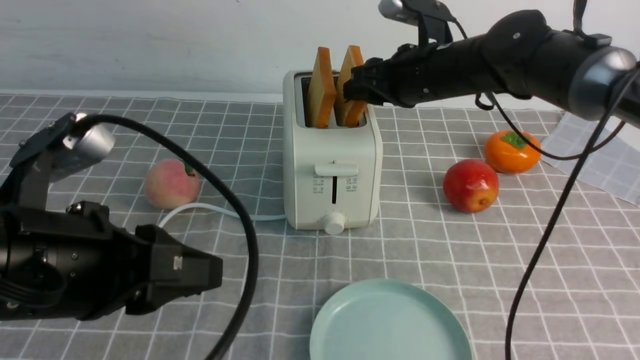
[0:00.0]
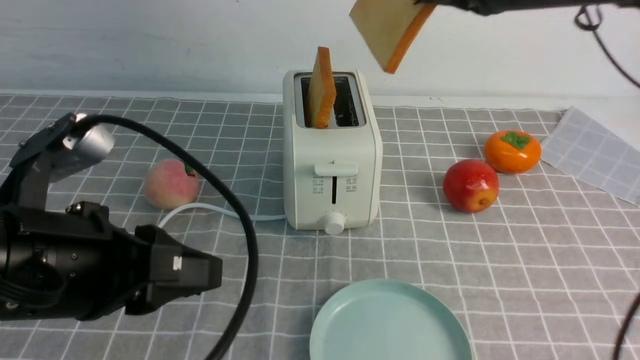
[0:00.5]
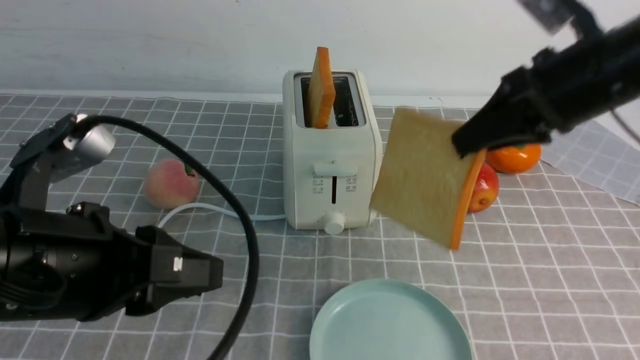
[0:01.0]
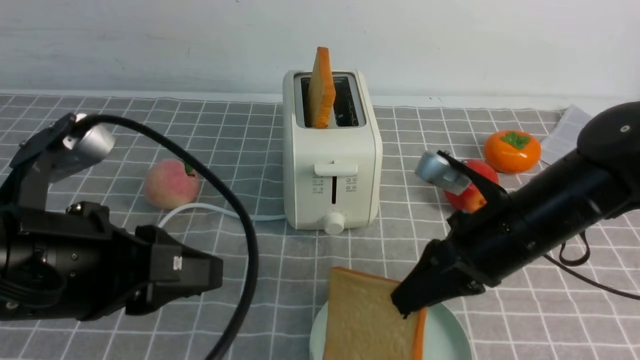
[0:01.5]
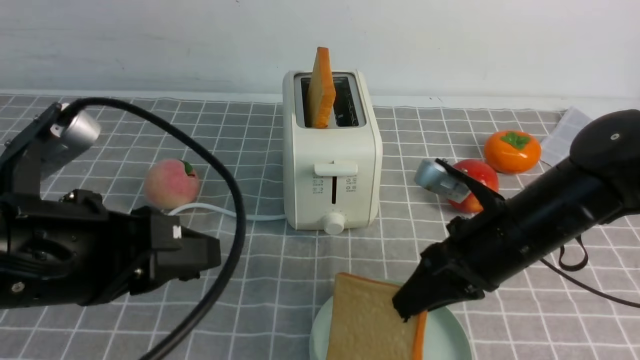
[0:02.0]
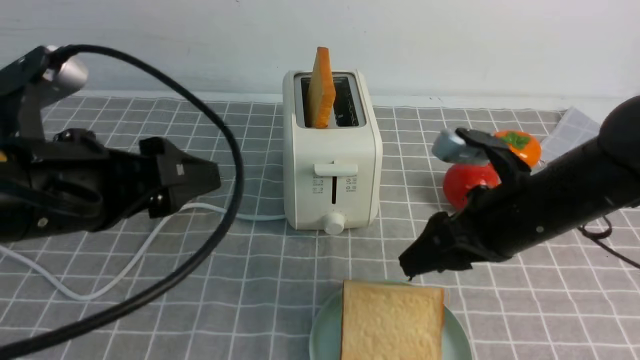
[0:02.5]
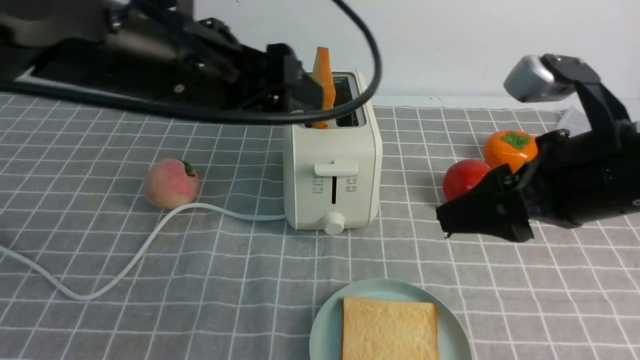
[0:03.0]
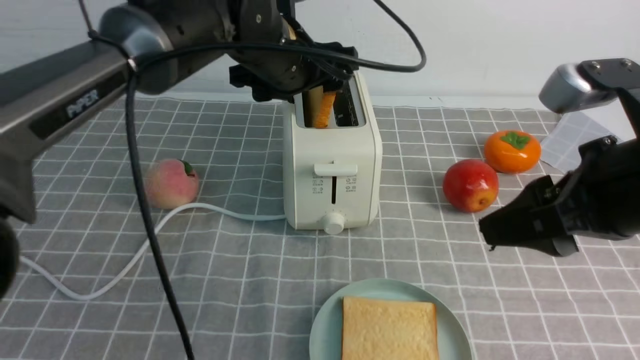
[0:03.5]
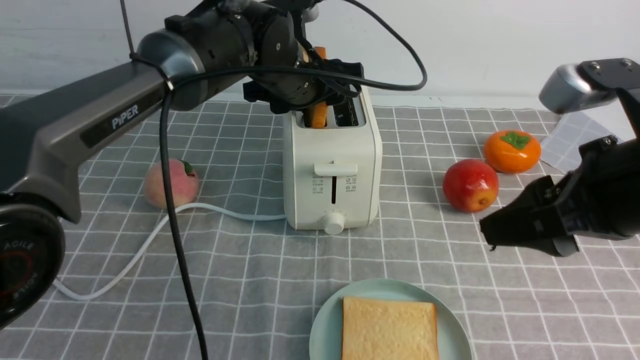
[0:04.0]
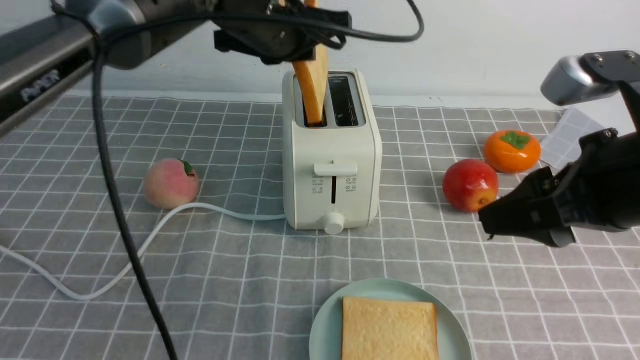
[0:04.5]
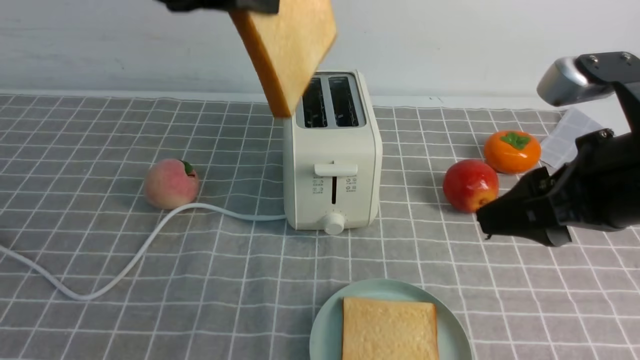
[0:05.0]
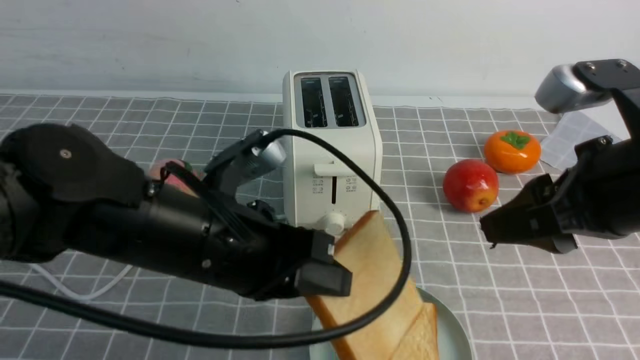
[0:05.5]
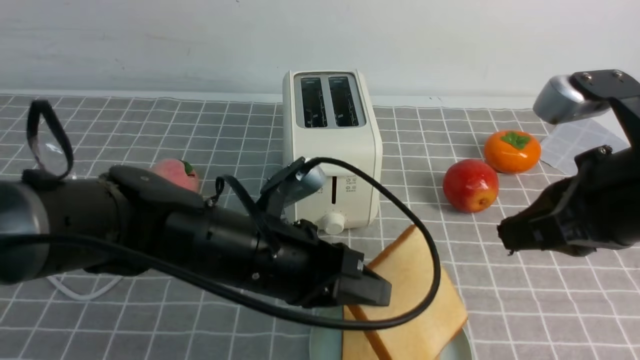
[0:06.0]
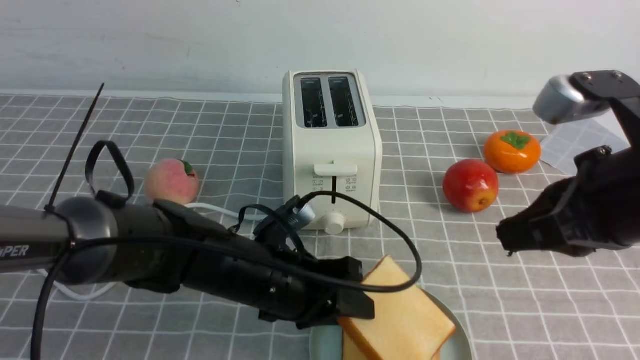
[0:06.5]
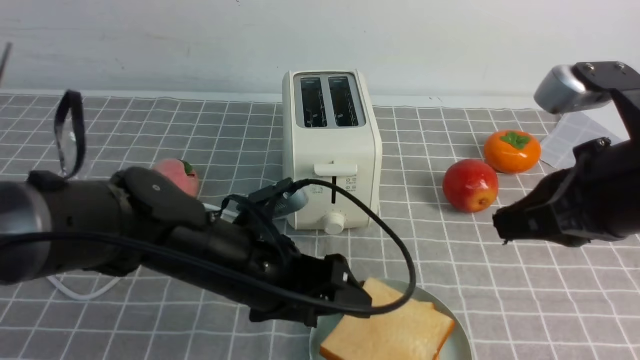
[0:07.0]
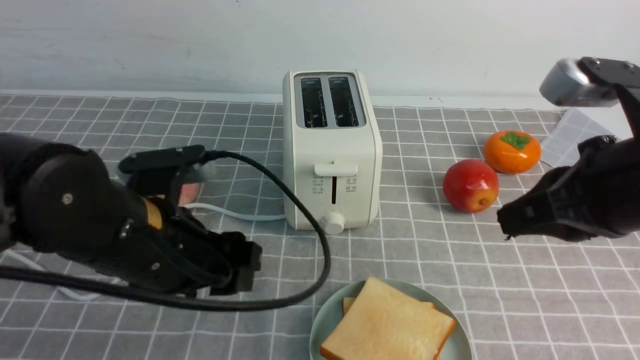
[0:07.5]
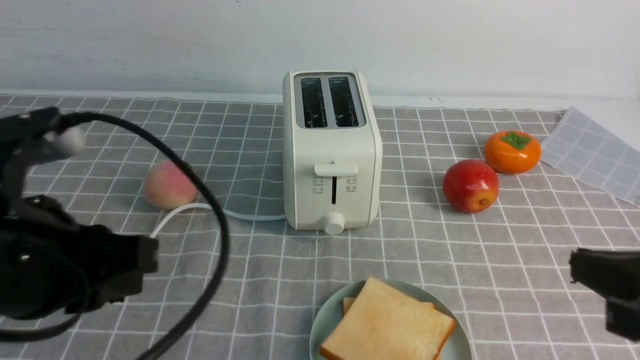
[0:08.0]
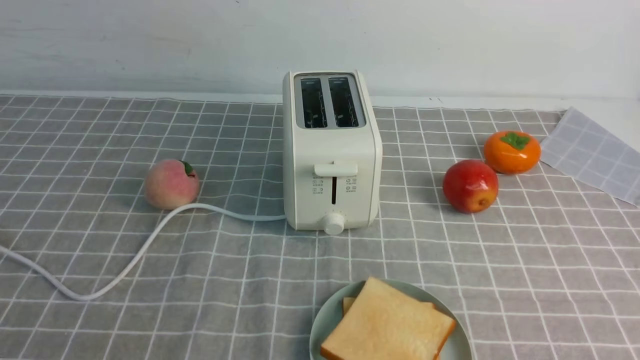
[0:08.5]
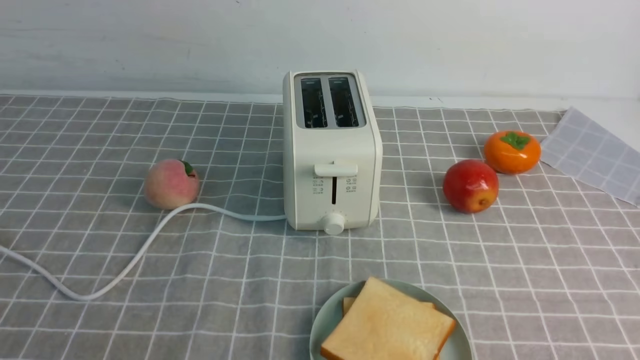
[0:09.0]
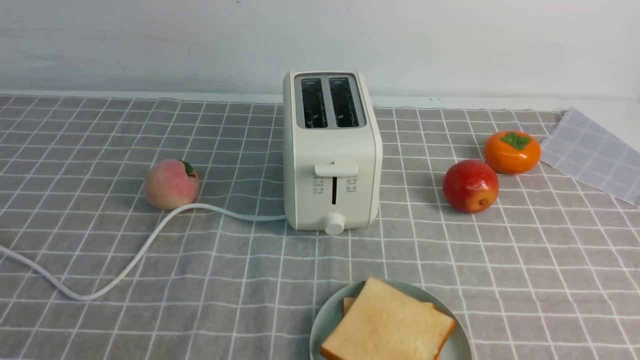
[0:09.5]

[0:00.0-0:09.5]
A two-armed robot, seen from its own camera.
Task of the whole recording: take toasted bread from bread machine on grey coffee table place on plate.
Step, 0:00.5 to 0:02.5: use the right arm to put a slice of bread into the plate.
Step, 0:03.0 to 0:04.5: use the left arm to take out a slice of bread.
Step, 0:05.0 to 0:07.0: use the left arm to put a slice of bread into the empty plate.
0:00.0 to 0:02.0: The right gripper heads backward, covering approximately 15 cm.
0:02.0 to 0:04.0: The left gripper heads forward and to the right, covering about 30 cm. The right gripper shifts approximately 15 cm upward and backward, and opens.
0:04.0 to 0:05.5: The left gripper moves backward, about 20 cm, and closes.
0:05.5 to 0:07.5: The left gripper reaches some 10 cm downward, then returns, and opens. The right gripper closes its fingers.
0:07.5 to 0:09.5: The left gripper moves backward and to the left, some 25 cm, and closes up. The right gripper travels backward and downward by roughly 20 cm.
